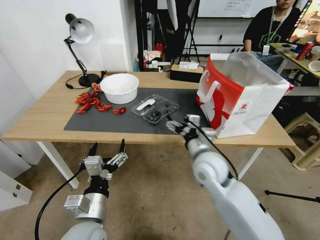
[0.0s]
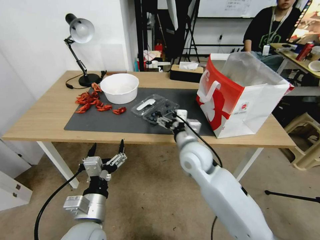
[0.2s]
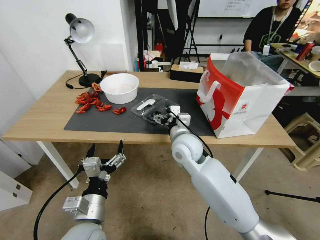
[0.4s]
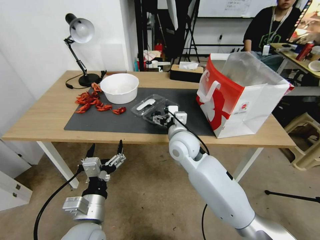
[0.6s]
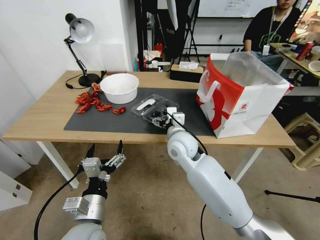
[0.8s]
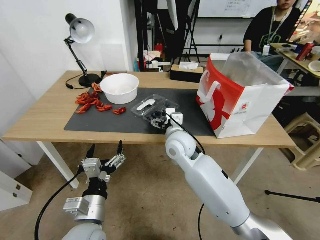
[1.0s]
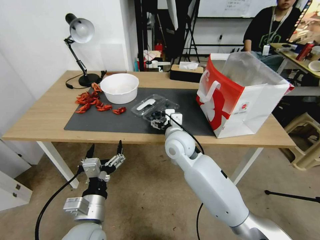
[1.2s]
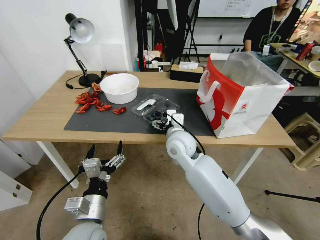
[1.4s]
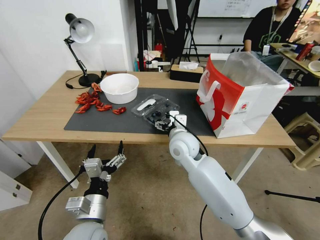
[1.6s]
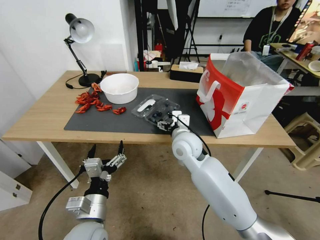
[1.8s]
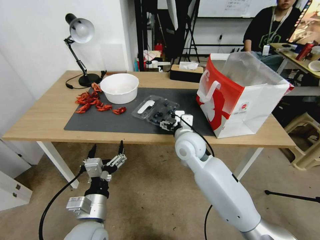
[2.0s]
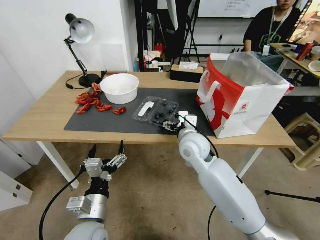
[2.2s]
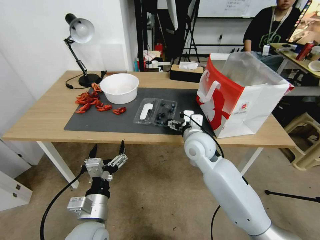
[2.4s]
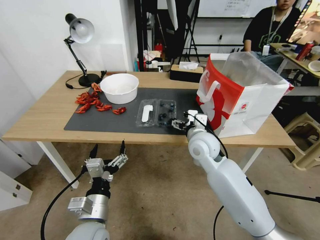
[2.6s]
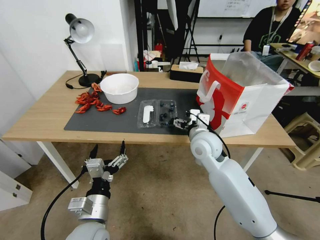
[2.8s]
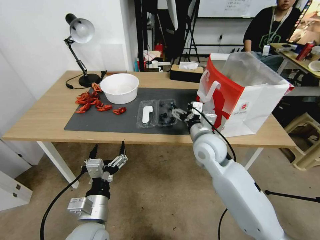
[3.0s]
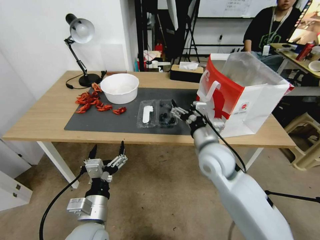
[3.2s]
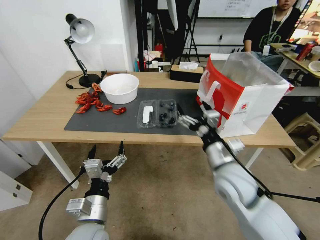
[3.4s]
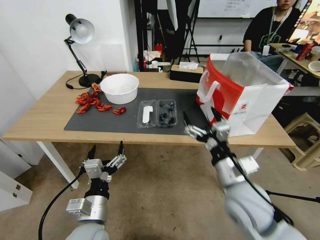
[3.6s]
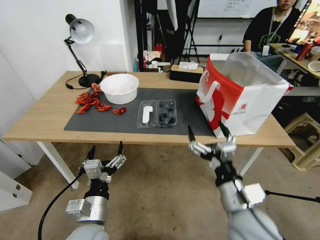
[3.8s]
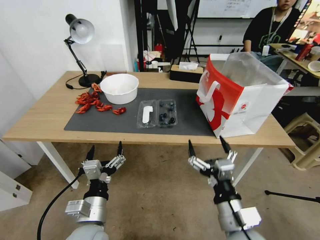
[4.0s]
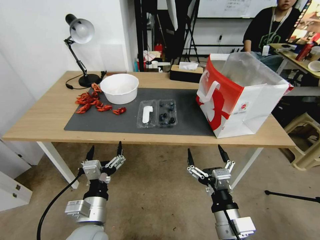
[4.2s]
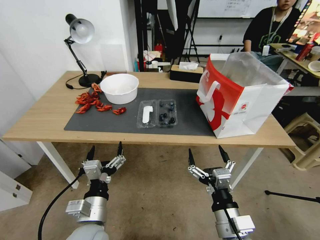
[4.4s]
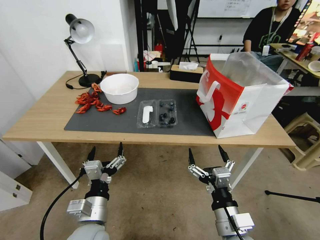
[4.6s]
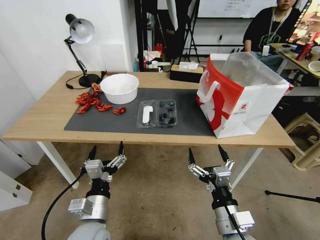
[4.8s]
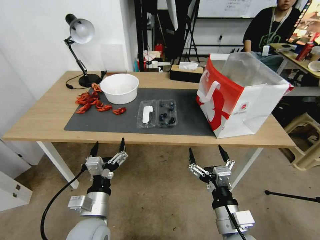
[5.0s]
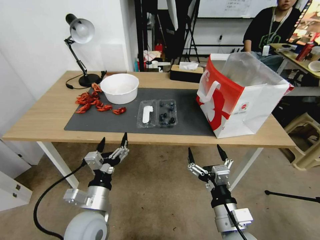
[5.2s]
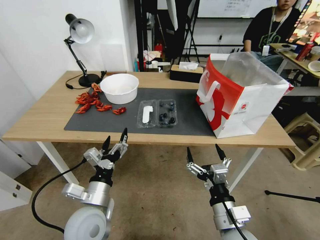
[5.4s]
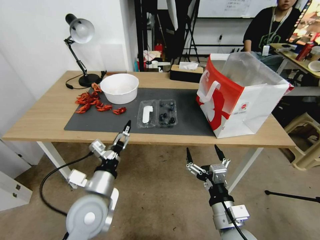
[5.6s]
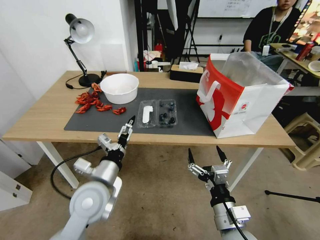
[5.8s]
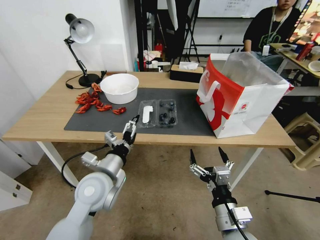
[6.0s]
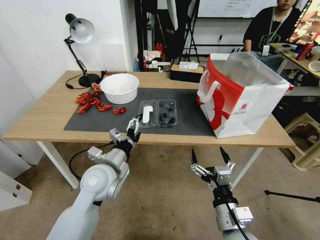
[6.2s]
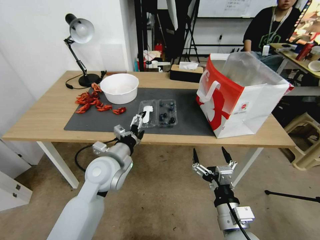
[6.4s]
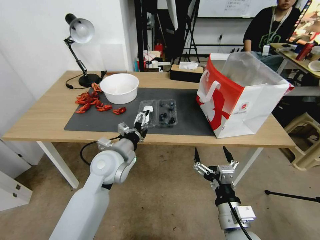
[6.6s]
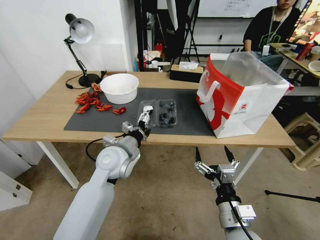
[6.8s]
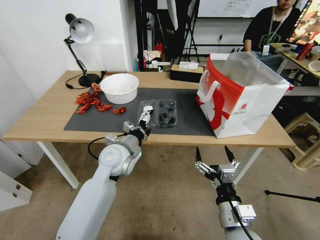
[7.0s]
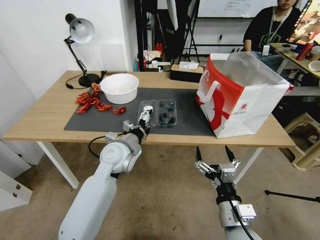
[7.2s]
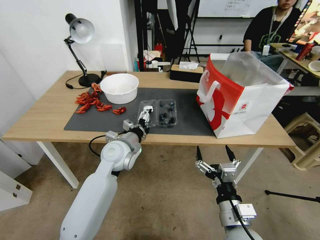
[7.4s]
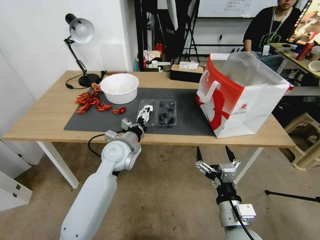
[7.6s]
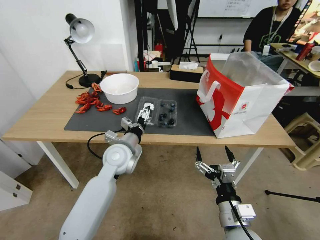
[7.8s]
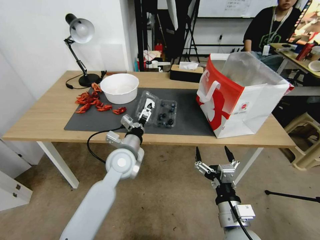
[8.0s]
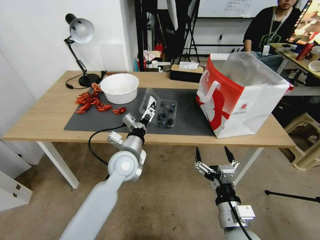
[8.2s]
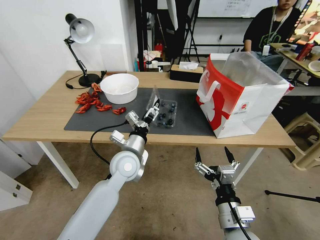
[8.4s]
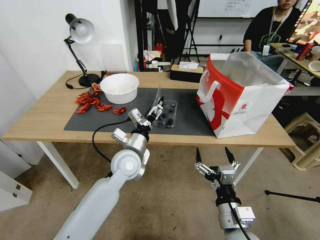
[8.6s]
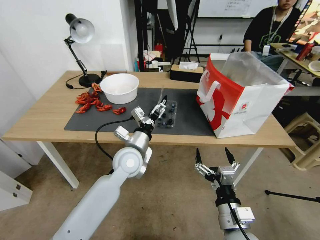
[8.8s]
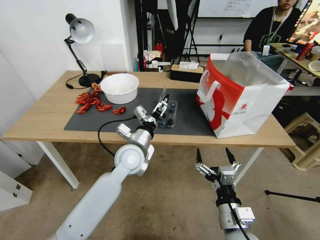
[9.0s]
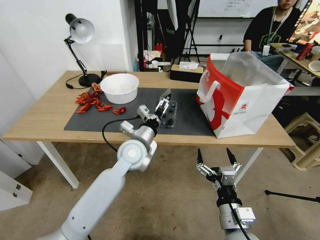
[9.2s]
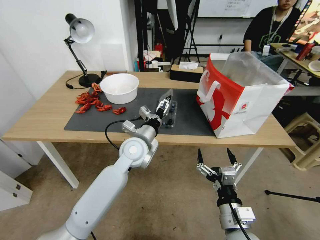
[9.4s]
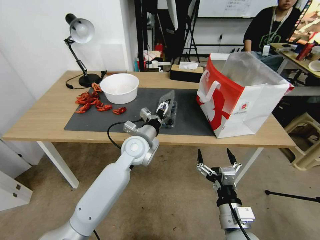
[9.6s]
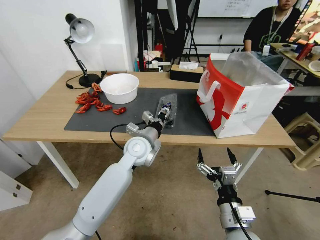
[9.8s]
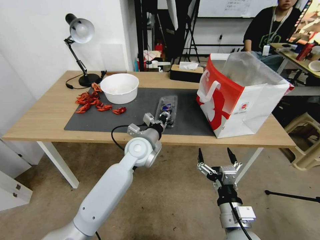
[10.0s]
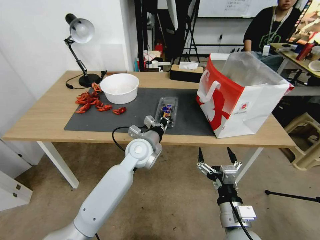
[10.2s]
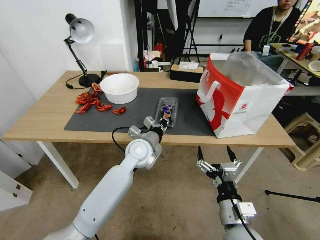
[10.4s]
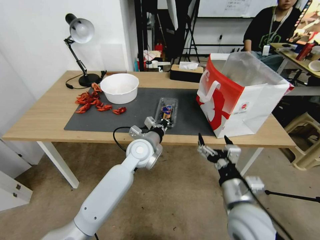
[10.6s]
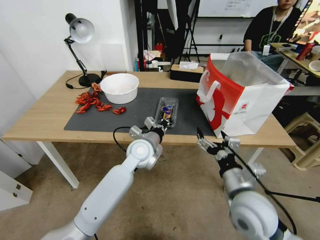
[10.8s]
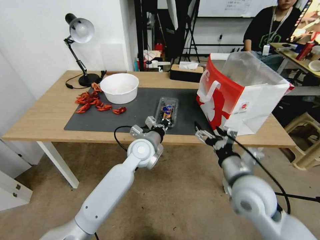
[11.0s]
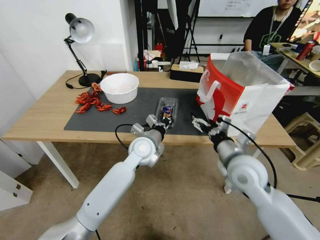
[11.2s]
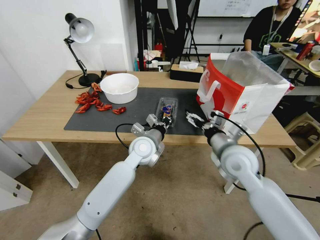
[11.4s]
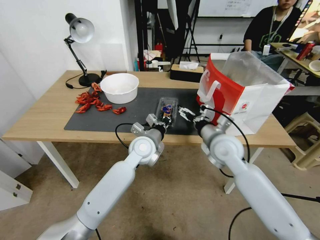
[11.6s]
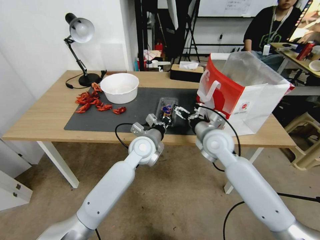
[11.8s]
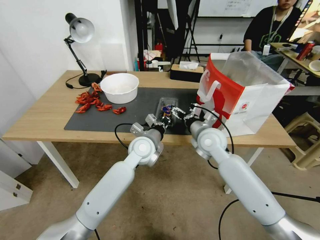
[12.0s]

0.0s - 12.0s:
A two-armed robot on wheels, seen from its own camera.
Task of the whole recording: Close the takeout container lid, then place the container into the takeout bag.
0.0s - 1.6s: The right gripper moves forward and to the left, roughly 10 cm.
1.6s - 3.0s: The right gripper shifts about 5 cm to the right.
3.0s - 4.4s: The right gripper moves backward, about 25 cm.
4.4s - 6.0s: The left gripper shifts roughly 10 cm forward and upward.
6.0s - 7.6s: The left gripper heads forward, covering approximately 10 cm.
9.0s - 10.4s: The left gripper closes its fingers.
10.4s - 12.0s: The right gripper is displaced forward by about 25 cm.

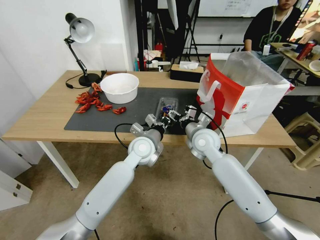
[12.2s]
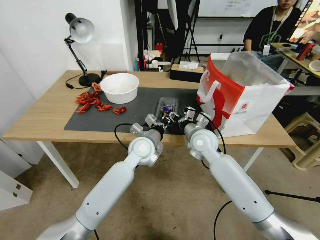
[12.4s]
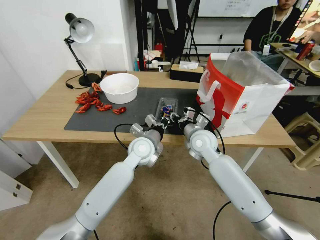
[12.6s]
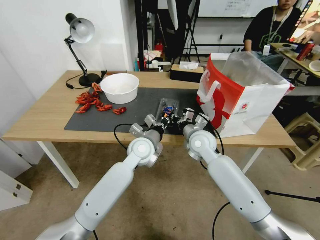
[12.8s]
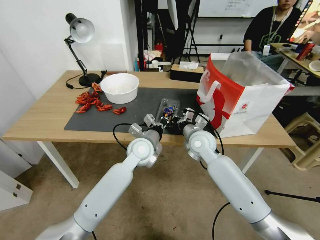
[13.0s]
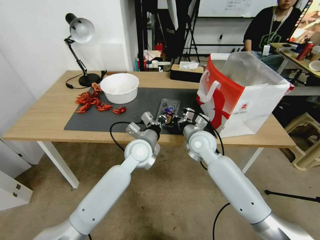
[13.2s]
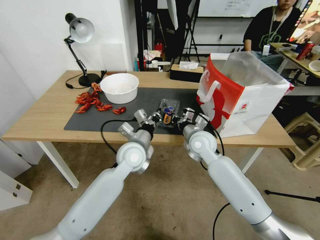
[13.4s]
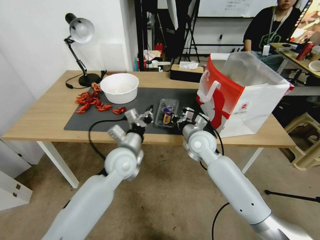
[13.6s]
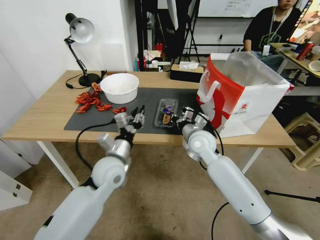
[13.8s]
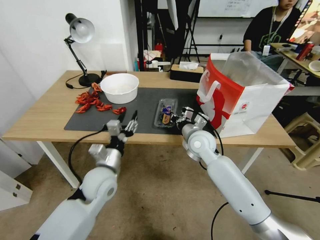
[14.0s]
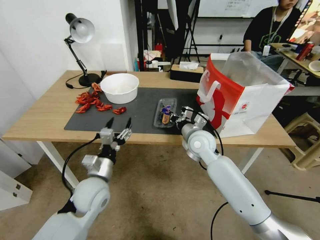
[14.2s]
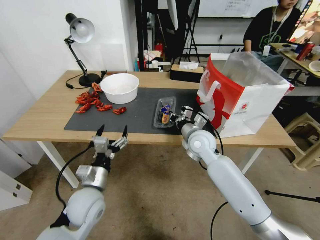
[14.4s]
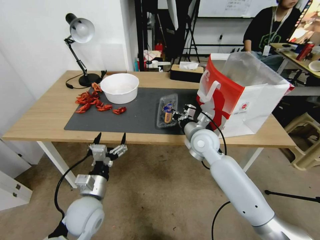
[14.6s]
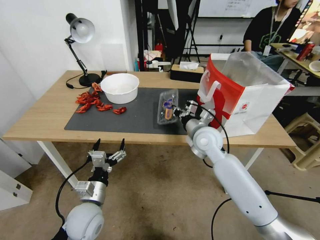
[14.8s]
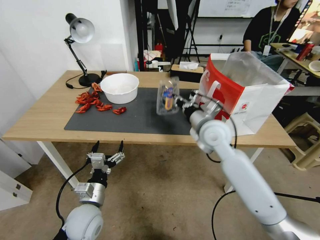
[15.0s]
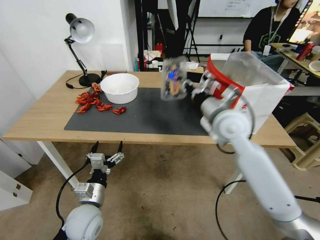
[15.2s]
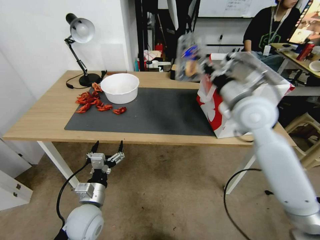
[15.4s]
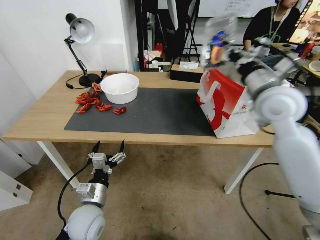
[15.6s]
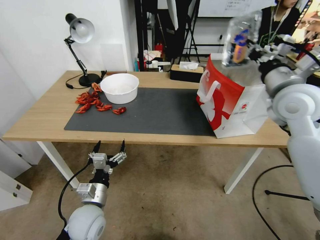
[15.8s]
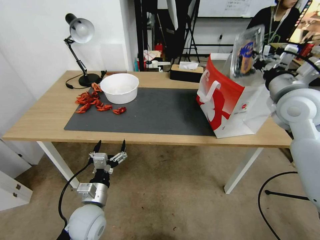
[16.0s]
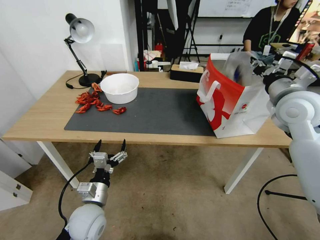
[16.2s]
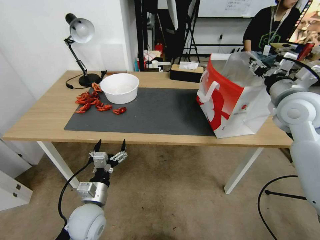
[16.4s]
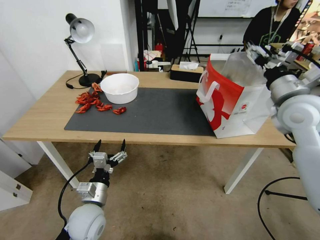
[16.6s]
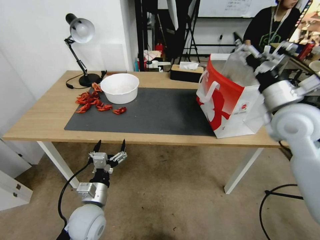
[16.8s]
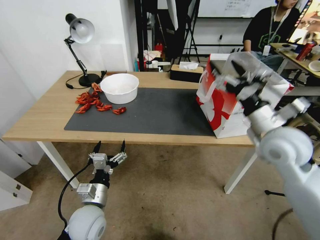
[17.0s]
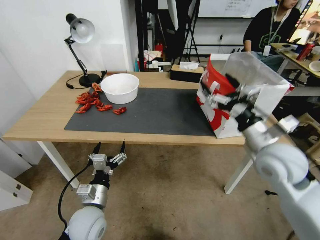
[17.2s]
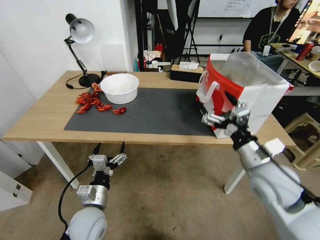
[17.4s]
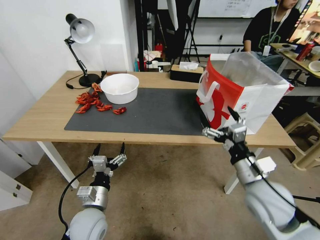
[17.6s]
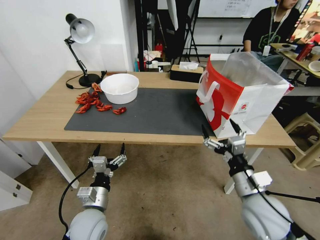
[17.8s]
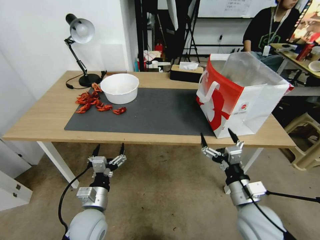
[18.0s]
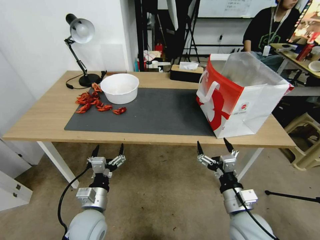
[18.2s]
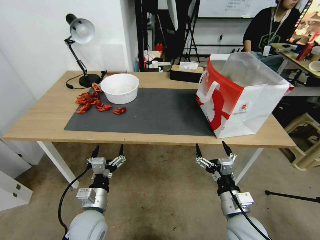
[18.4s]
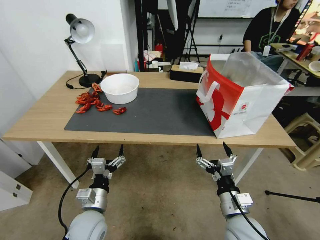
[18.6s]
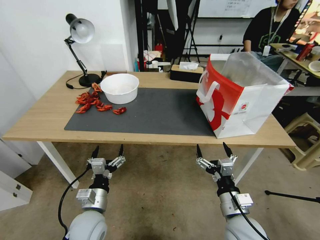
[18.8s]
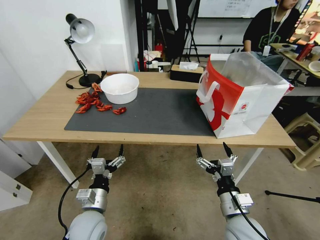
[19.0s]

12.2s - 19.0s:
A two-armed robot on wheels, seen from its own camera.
Task of the whole recording: Close the takeout container lid, then place the container into the takeout bag.
12.2s - 13.6s: The right gripper closes its fingers, while the left gripper moves to the left and backward, some 10 cm.
13.6s - 15.0s: The left gripper is displaced backward, to the left and downward by some 20 cm, and opens; the right gripper moves upward, some 5 cm.
15.0s - 16.2s: The right gripper goes about 20 cm to the right and upward.
16.2s - 17.6s: The right gripper moves downward, backward and to the left, some 25 cm, and opens its fingers.
17.6s - 19.0s: The right gripper travels downward and backward by some 10 cm.
